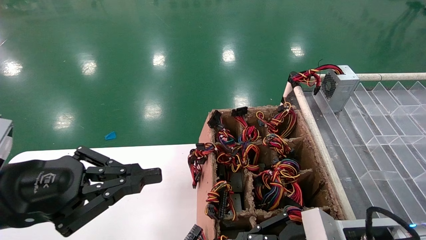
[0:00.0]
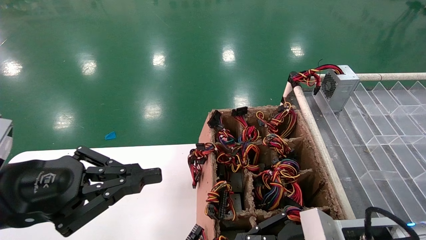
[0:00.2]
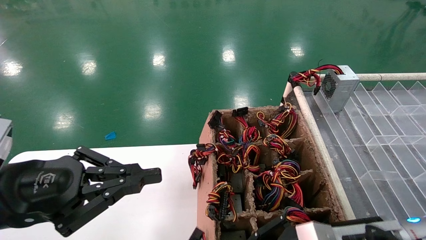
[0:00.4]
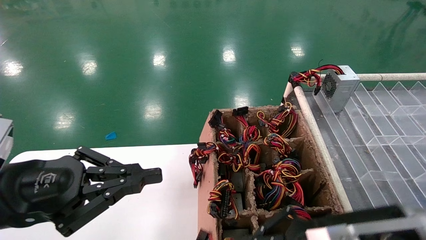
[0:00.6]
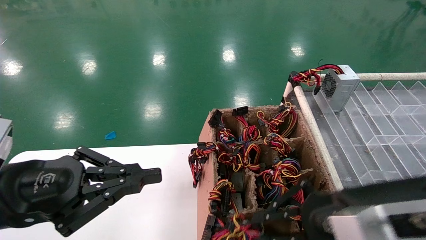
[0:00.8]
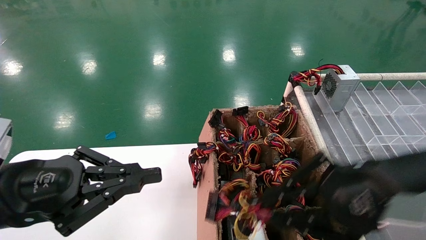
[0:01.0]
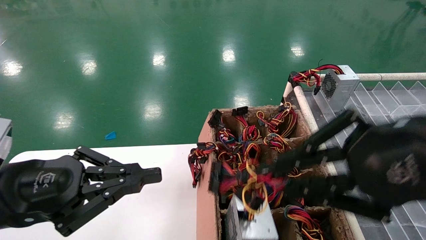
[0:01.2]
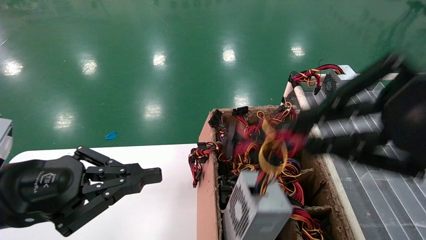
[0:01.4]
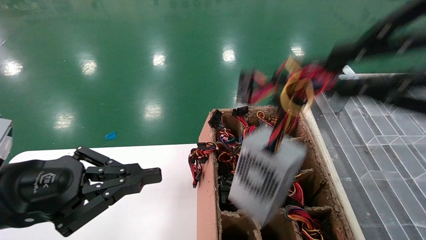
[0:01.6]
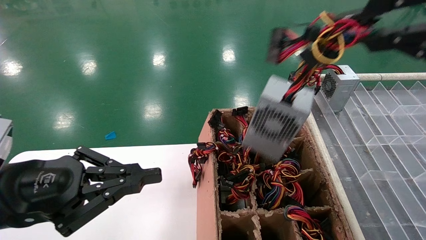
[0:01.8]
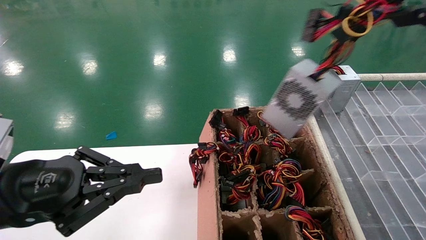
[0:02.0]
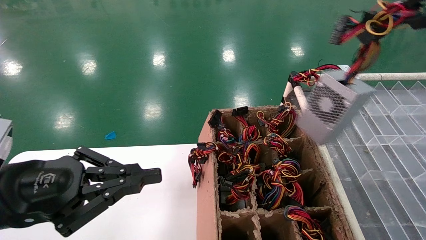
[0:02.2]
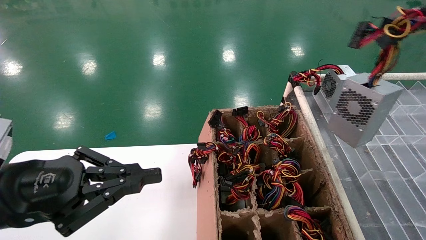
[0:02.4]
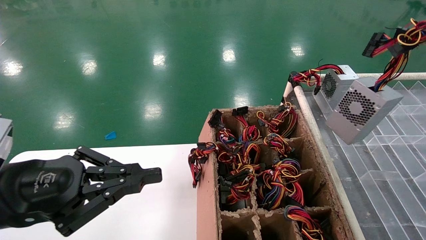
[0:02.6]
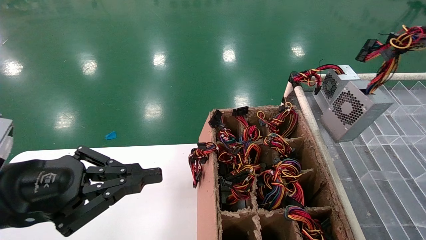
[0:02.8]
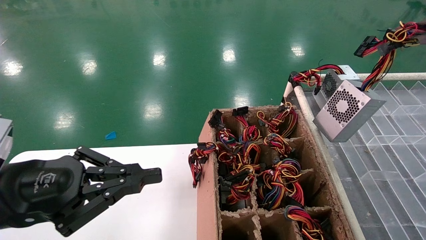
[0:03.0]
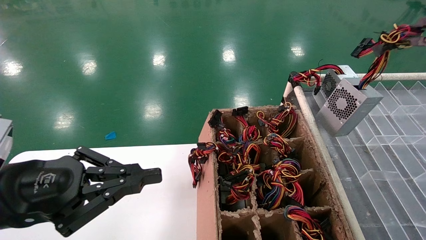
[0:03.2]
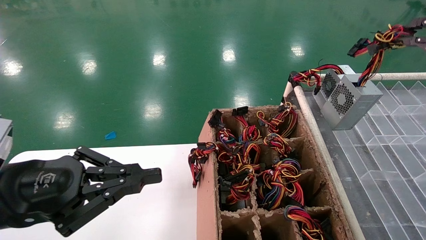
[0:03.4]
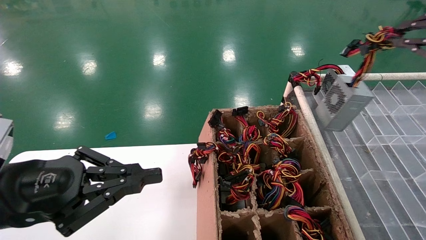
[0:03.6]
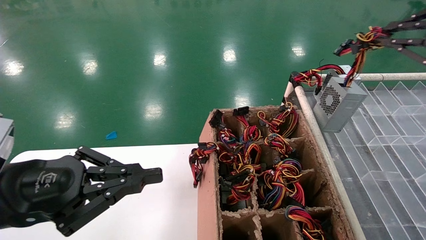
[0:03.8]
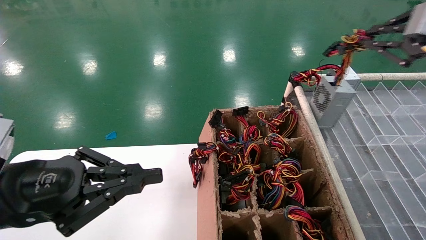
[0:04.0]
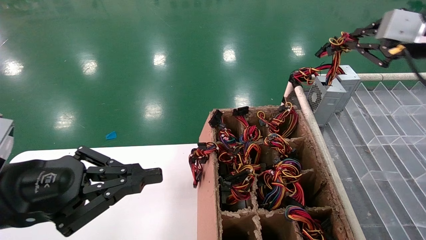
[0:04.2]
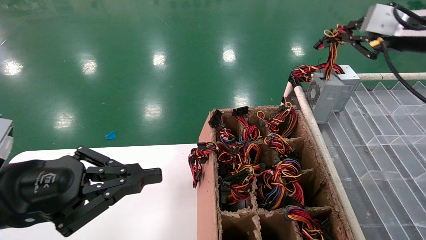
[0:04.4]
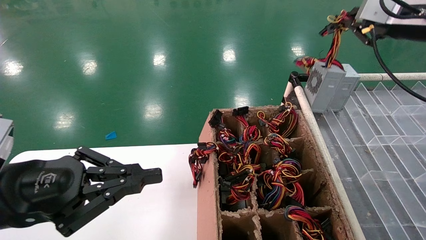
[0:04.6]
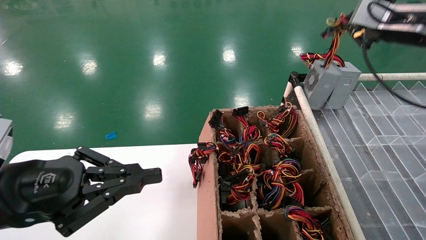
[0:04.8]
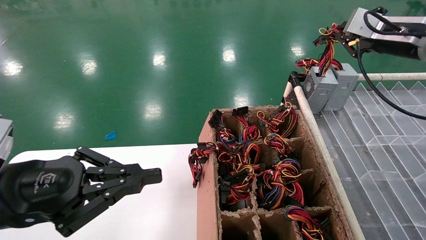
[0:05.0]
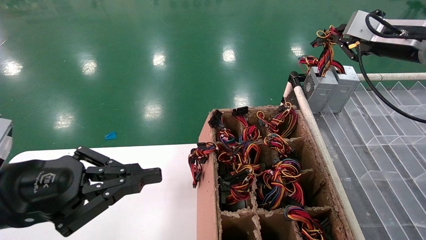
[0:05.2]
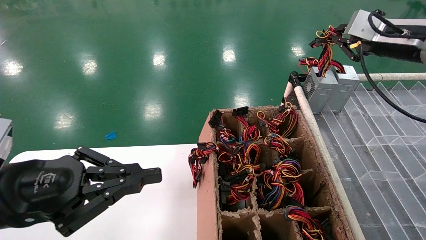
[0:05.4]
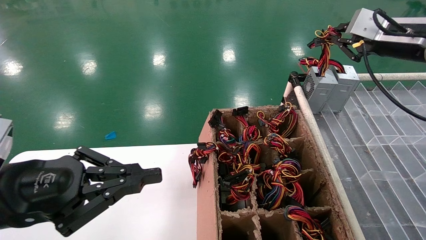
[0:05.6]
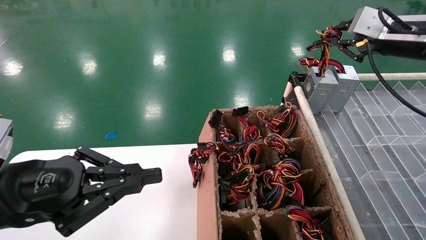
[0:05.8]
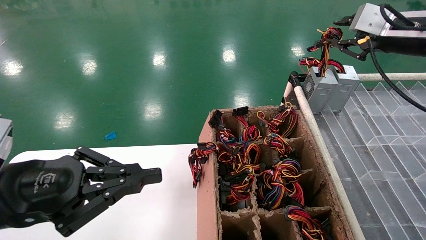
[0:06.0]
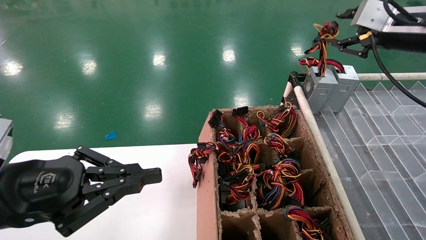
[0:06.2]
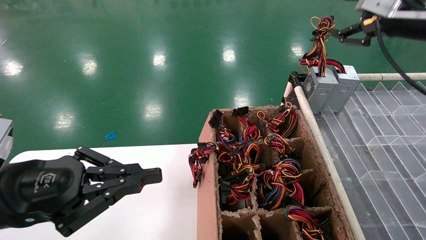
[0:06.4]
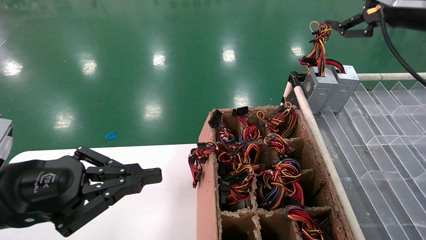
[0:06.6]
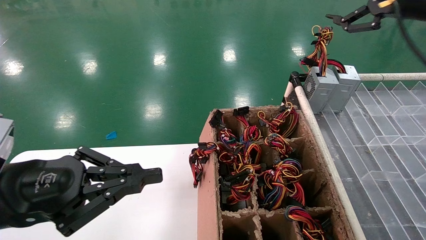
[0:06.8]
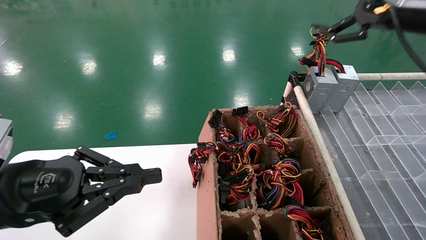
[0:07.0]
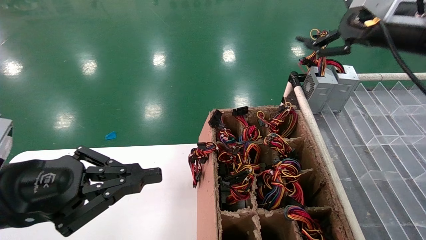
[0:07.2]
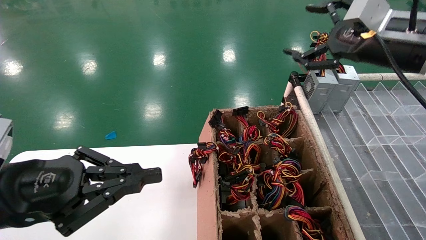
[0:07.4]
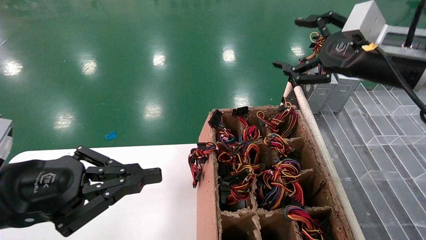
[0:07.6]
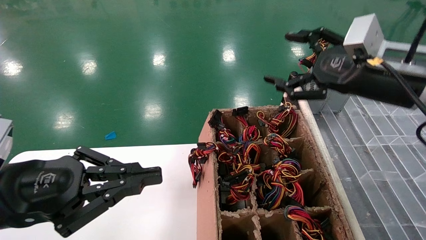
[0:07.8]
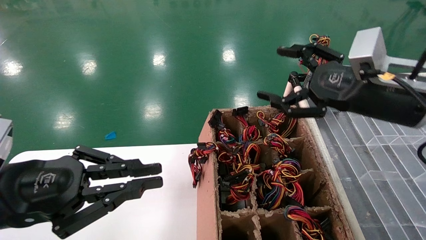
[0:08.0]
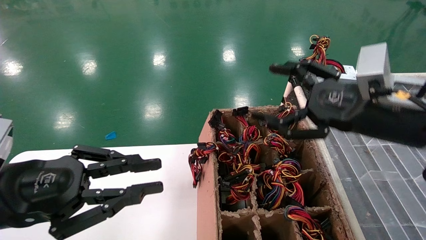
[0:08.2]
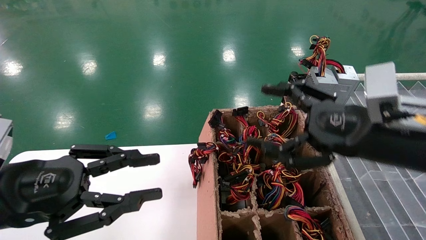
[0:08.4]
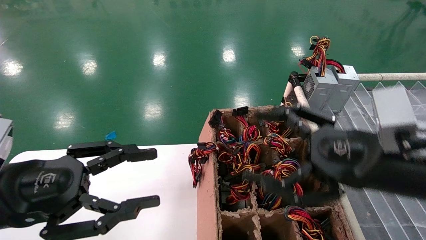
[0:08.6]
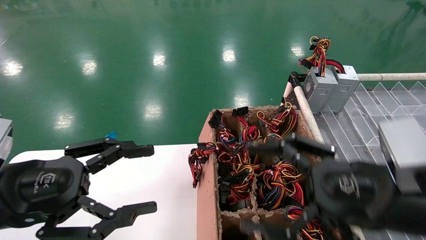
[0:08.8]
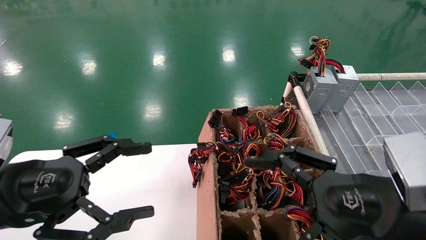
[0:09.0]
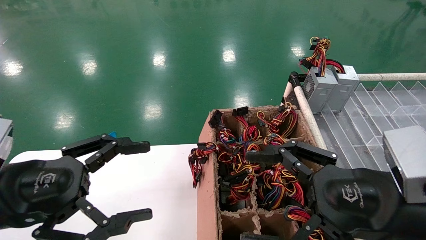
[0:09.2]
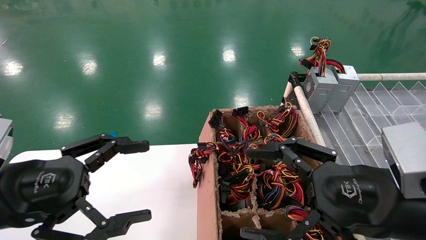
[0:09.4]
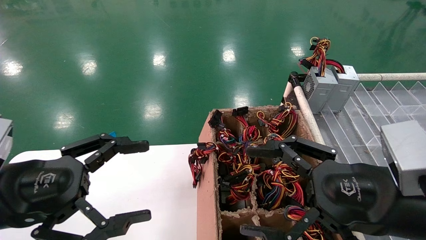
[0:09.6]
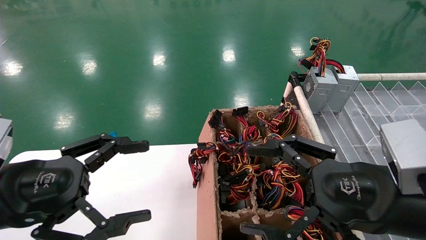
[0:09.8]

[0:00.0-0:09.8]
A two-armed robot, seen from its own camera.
Step, 0:00.8 to 0:06.4: Place the main unit power supply in the designated area.
0:00.0 to 0:01.4: The right gripper moves upward and backward, about 30 cm.
0:01.4 to 0:02.8: The right gripper is displaced to the right by approximately 20 cm.
0:02.8 to 0:04.2: The right gripper travels forward by approximately 15 cm.
0:04.2 to 0:05.6: The right gripper ends up roughly 5 cm from where it was.
0:05.6 to 0:07.0: The right gripper ends up about 5 cm from where it was, and opens its fingers.
0:07.0 to 0:08.4: The right gripper shifts some 20 cm downward, backward and to the left.
0:08.4 to 0:09.8: The left gripper opens. The right gripper heads backward, covering about 5 cm.

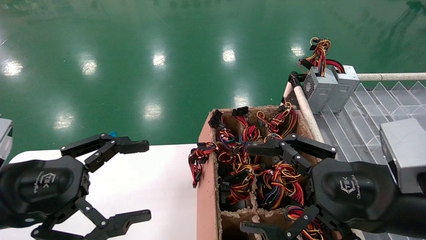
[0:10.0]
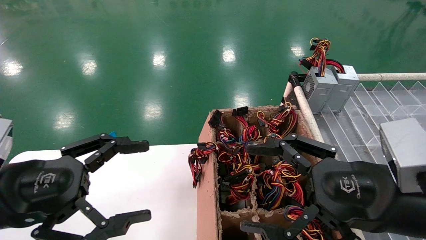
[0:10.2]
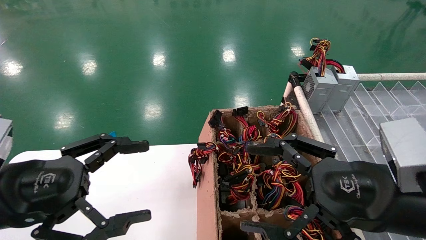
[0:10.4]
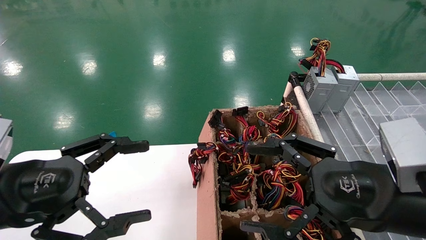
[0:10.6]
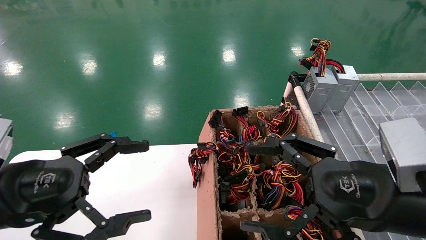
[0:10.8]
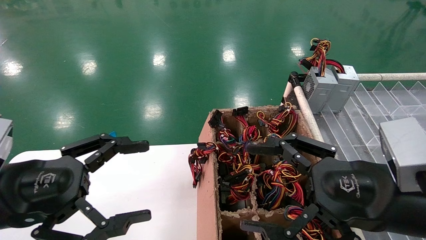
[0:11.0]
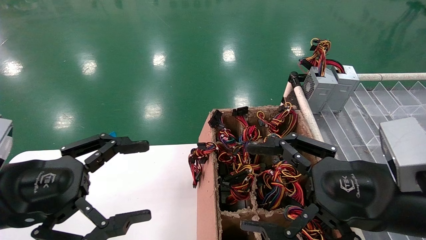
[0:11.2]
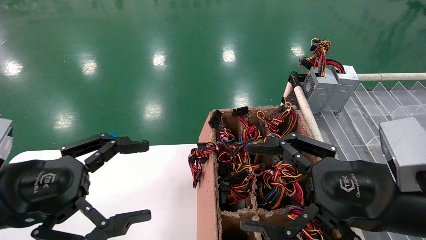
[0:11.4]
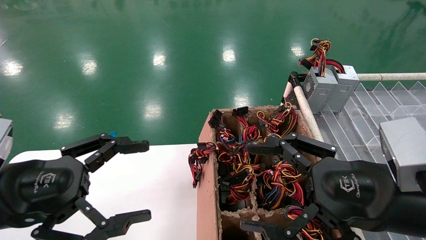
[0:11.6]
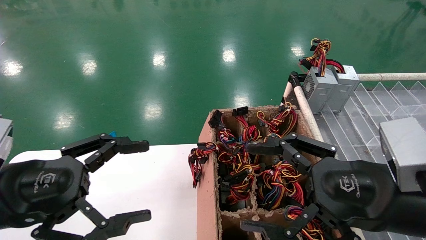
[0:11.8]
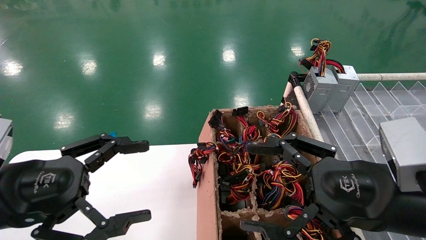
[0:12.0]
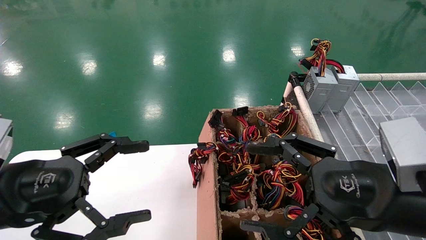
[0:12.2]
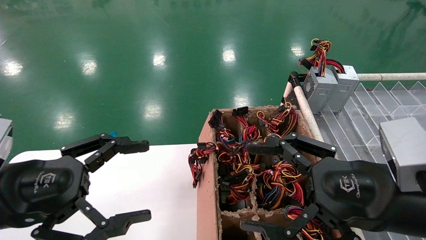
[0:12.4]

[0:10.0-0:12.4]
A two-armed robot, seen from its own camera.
0:10.0 to 0:12.4: Both grippers stay put.
